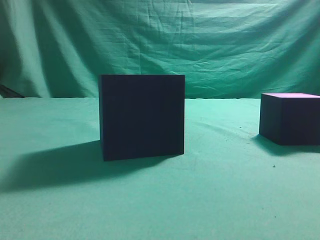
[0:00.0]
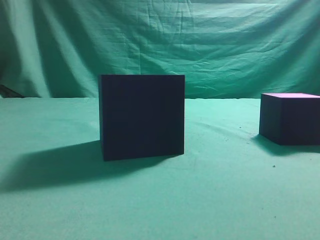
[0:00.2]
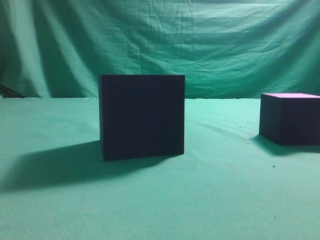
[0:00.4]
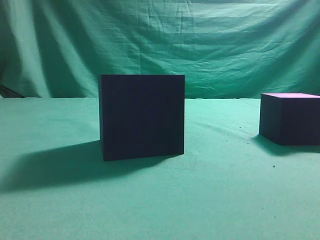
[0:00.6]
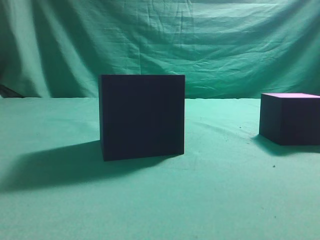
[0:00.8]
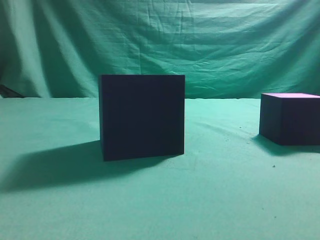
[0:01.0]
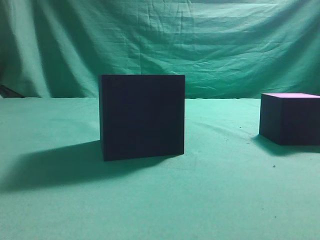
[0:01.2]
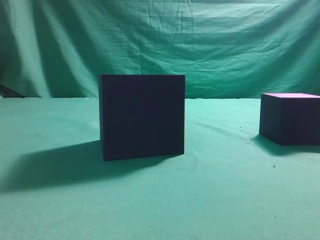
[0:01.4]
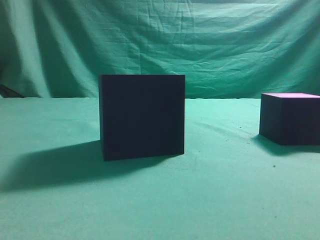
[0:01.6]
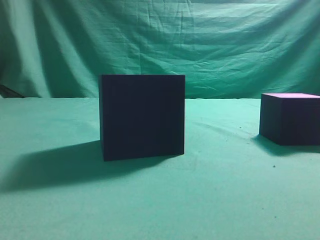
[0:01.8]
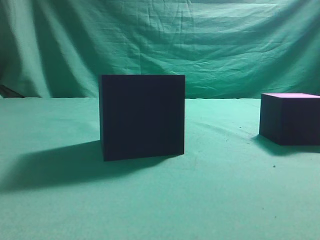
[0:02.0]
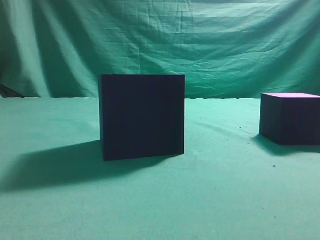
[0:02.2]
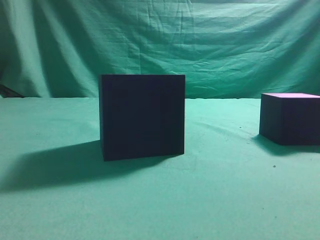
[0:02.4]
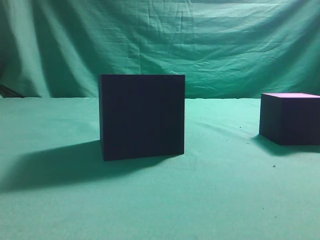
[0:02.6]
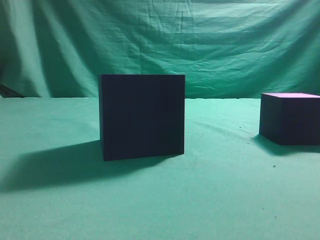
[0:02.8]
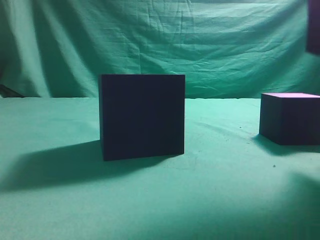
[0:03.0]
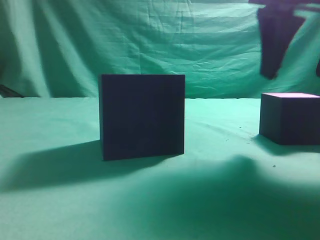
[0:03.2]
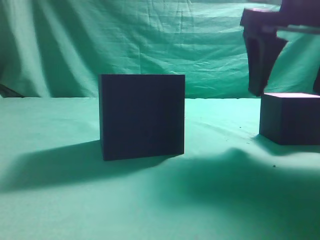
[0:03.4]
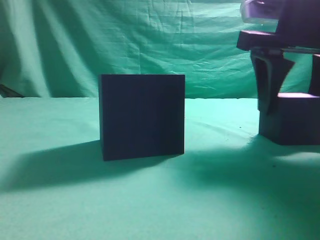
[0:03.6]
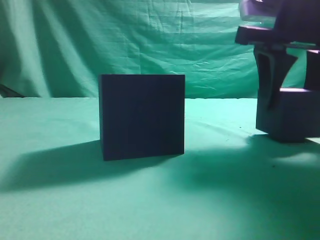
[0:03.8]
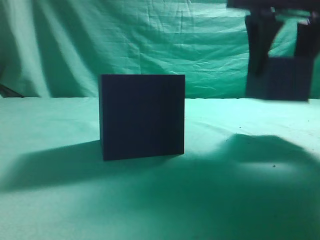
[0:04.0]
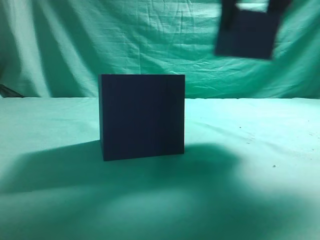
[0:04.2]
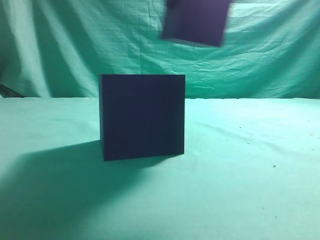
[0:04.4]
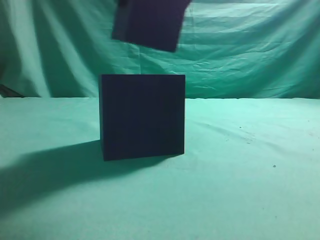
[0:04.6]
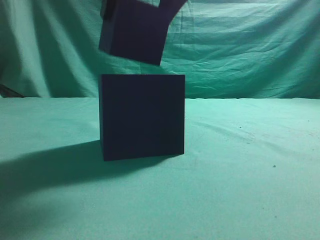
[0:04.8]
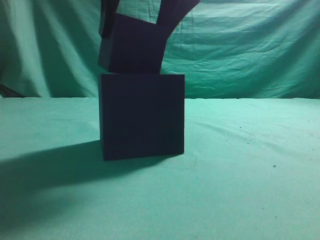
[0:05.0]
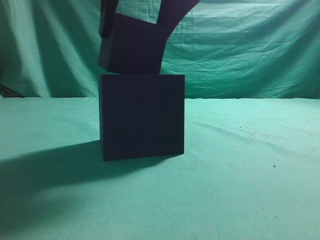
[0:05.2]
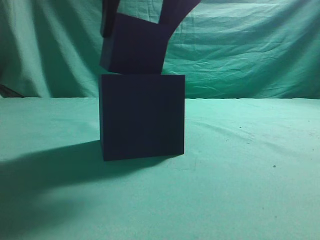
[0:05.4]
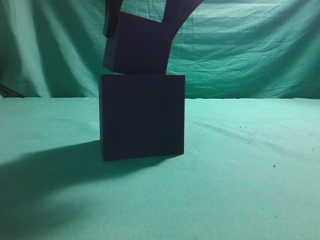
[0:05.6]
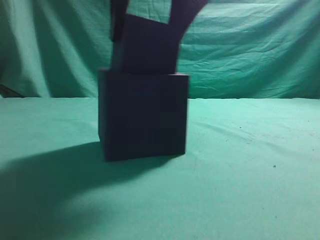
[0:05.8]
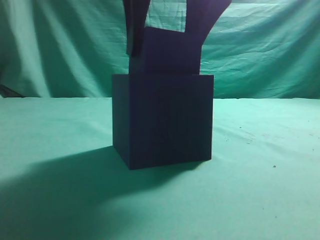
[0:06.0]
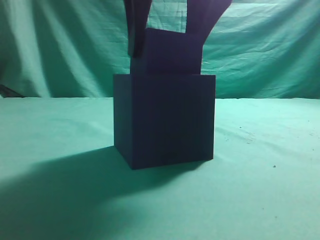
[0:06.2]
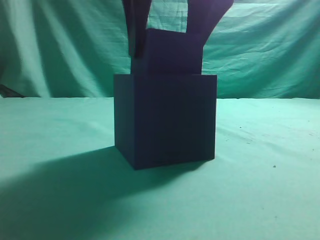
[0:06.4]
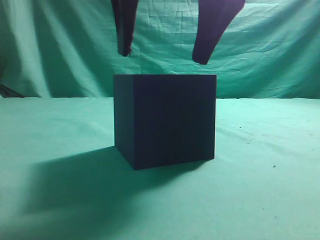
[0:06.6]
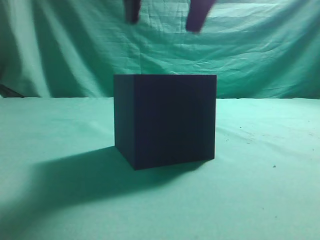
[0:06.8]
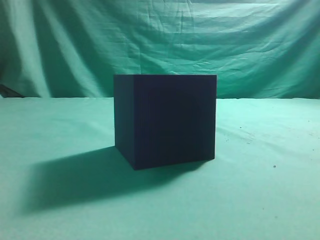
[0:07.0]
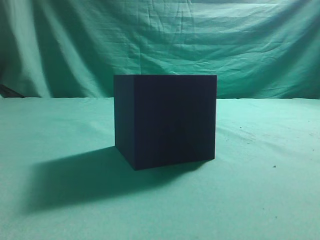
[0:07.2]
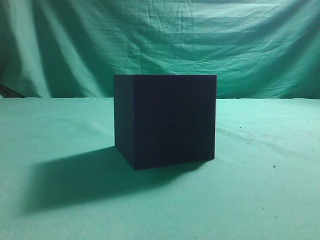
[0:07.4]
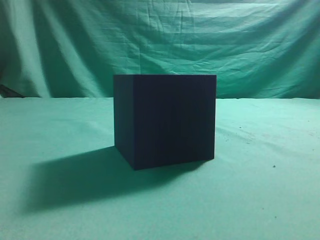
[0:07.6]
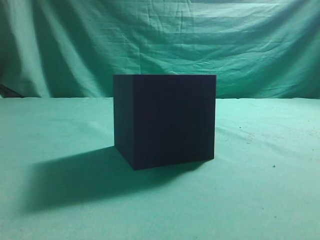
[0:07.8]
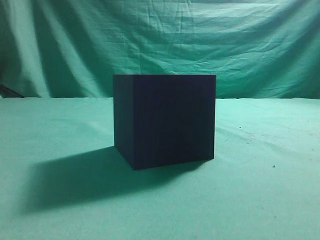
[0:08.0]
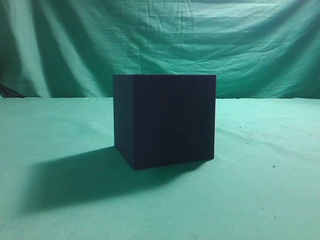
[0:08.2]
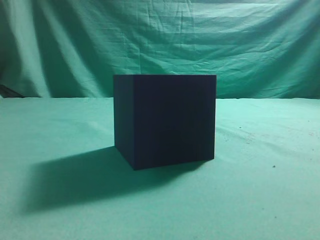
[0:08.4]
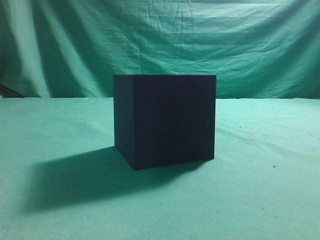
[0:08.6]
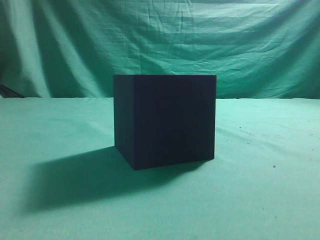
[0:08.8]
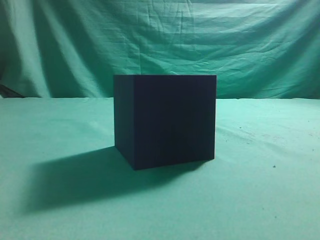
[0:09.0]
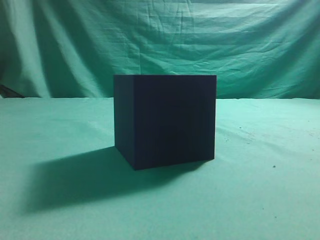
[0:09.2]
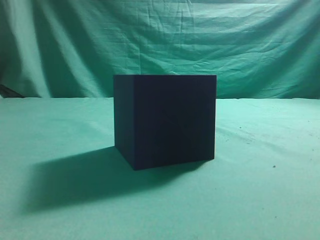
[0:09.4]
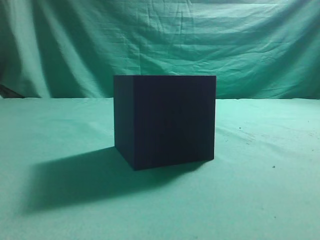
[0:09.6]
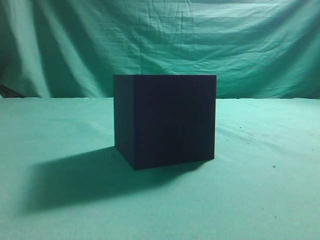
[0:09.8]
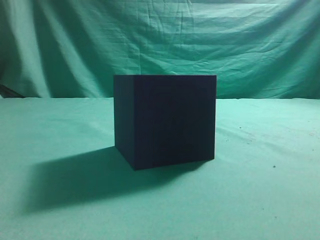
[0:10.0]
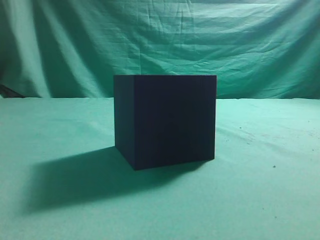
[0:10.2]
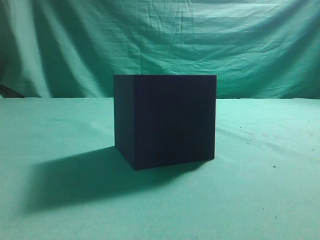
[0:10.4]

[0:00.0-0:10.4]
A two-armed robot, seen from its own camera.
Task of the whole recording: pick up the cube block and place it into the cube groove.
Step, 0:00.0 to 0:03.8: Grasp the cube.
Step, 0:04.0 to 0:06.6: Place cube into the cube-shaped recess.
0:01.4 to 0:03.0: The right gripper heads forward and to the left, covering about 20 cm.
0:03.0 to 0:04.4: The right gripper travels to the left by roughly 10 cm, and opens.
0:04.4 to 0:06.0: The right gripper moves roughly 5 cm.
0:06.0 to 0:07.4: The right gripper travels upward and to the right by approximately 20 cm, and closes.
